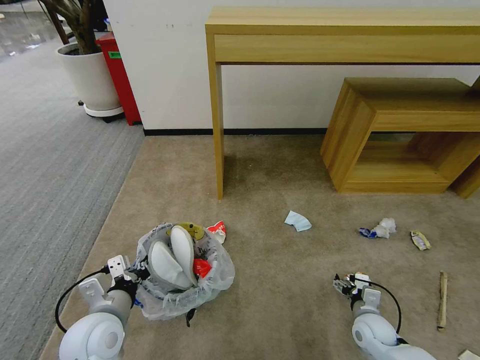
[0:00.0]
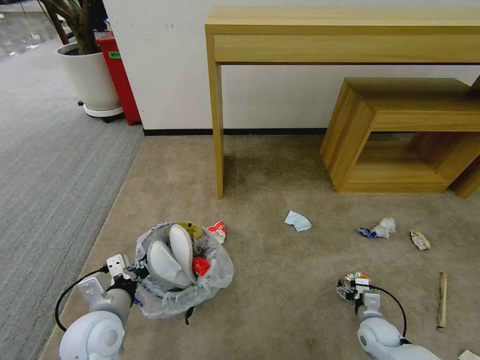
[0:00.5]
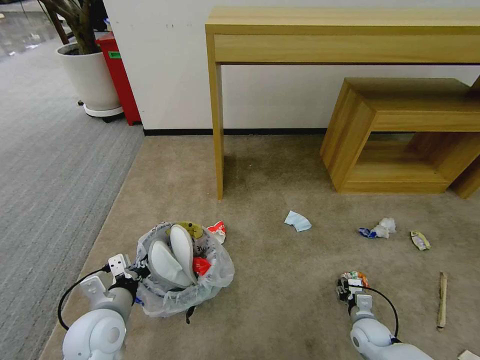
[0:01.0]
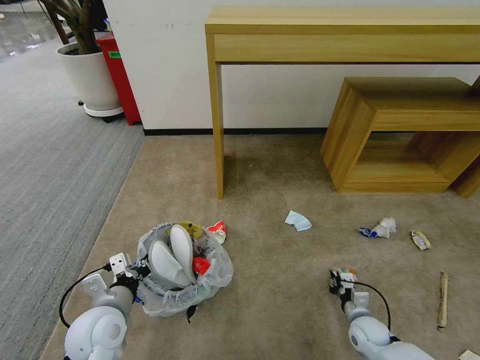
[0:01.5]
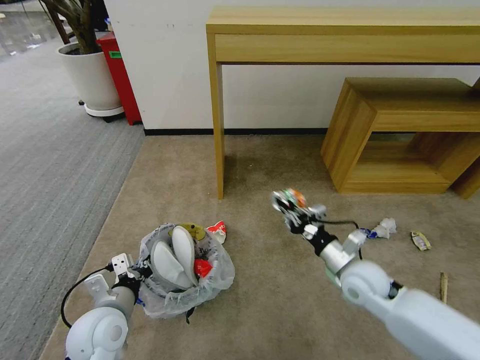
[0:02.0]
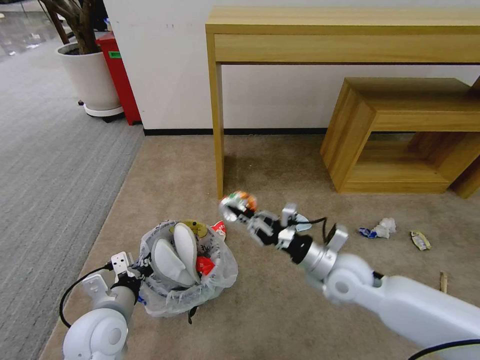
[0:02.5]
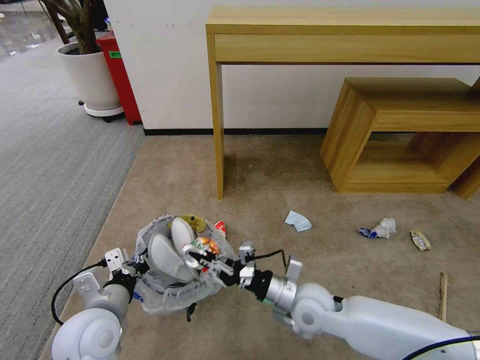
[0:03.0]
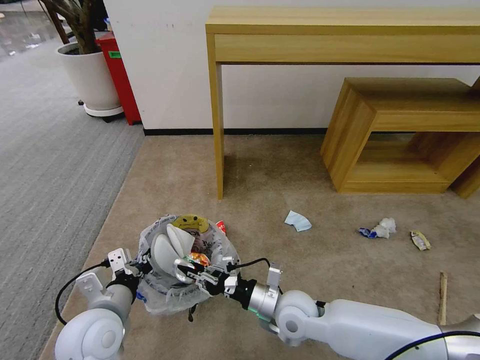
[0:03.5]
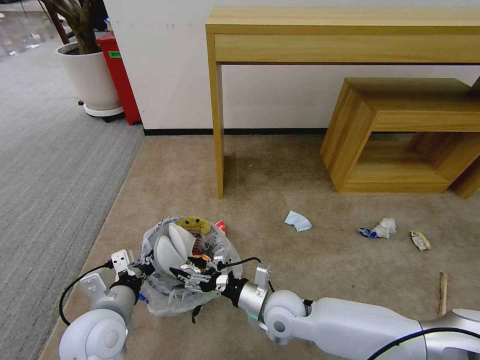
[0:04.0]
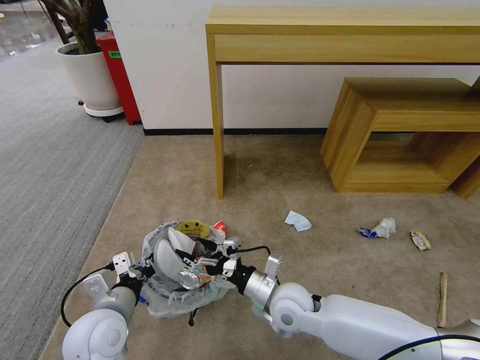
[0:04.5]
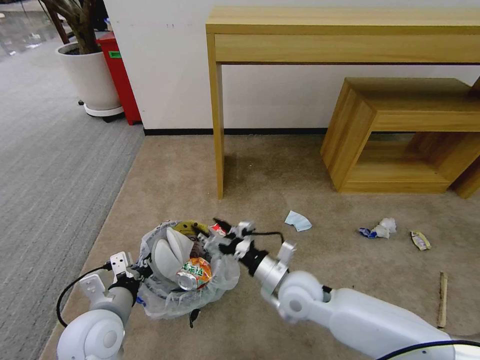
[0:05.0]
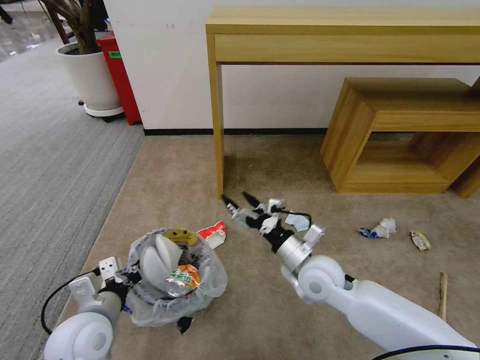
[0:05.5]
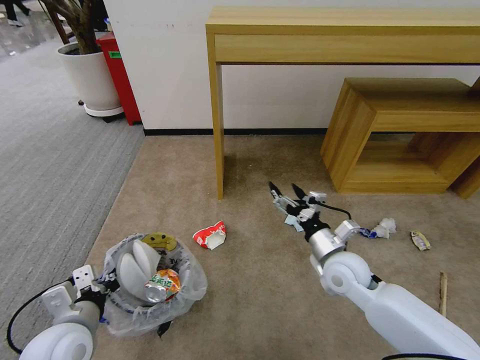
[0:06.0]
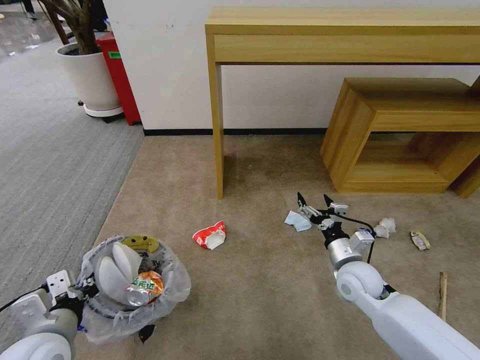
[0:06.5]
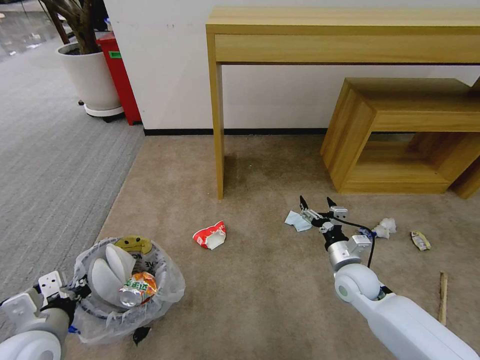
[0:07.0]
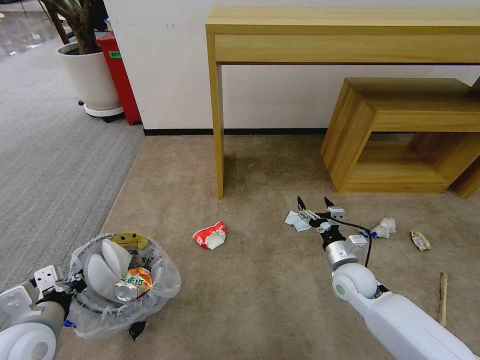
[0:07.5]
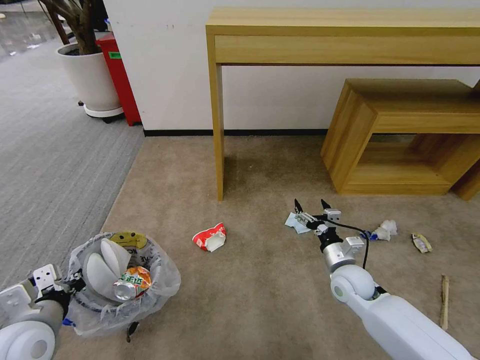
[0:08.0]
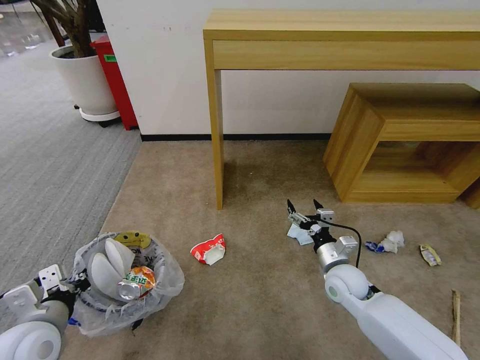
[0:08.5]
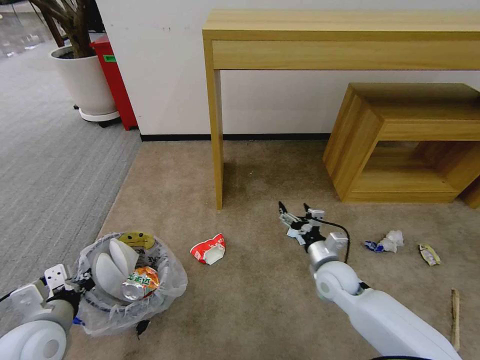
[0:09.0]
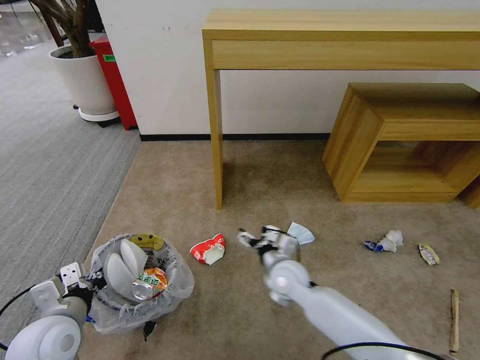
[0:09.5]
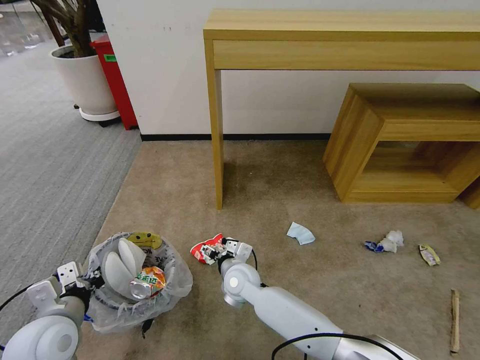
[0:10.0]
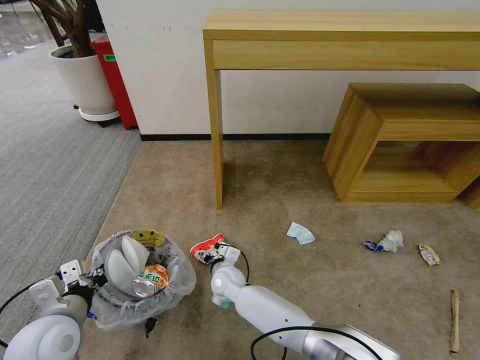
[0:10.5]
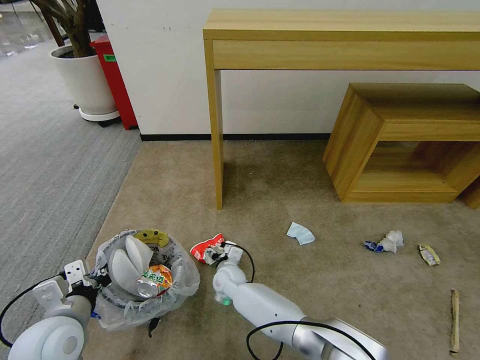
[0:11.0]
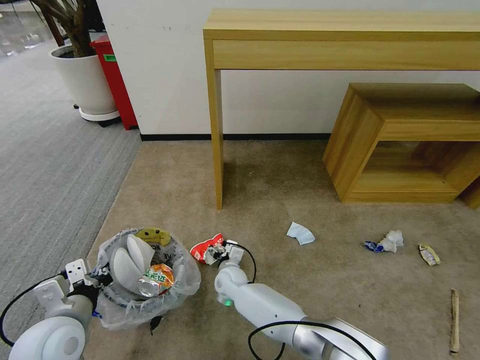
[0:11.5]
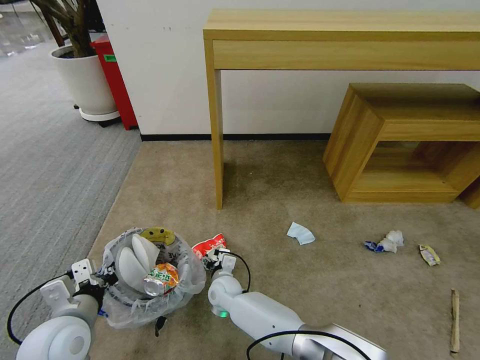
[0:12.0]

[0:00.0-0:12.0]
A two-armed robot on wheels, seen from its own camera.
Task of the whole recording: Pick up the trash bin and place the garbage on the floor into it.
0:00.0 to 0:02.0: The right gripper travels upward by about 20 cm, and closes.
0:02.0 to 0:04.0: The right gripper goes some 20 cm to the left and downward, and opens.
0:04.0 to 0:06.0: The left gripper ends up approximately 5 cm from where it was, while the right gripper goes about 15 cm to the right, upward and forward.
0:06.0 to 0:08.0: The right gripper travels downward by roughly 10 cm; the left gripper travels to the left by some 5 cm.
0:08.0 to 0:10.0: The right gripper moves to the left, roughly 30 cm.
0:10.0 to 0:12.0: The right gripper shifts approximately 10 cm downward.

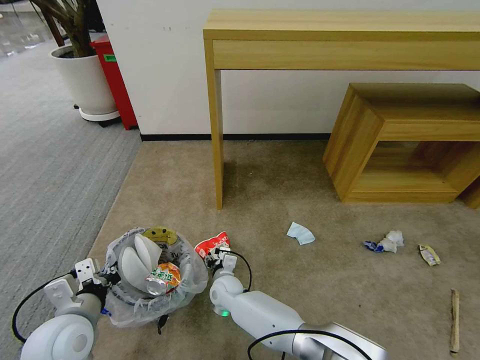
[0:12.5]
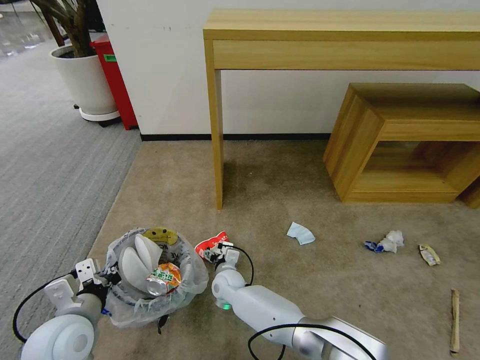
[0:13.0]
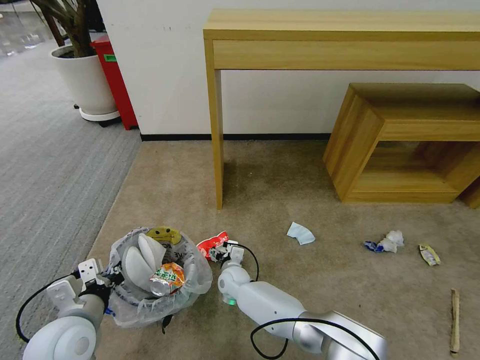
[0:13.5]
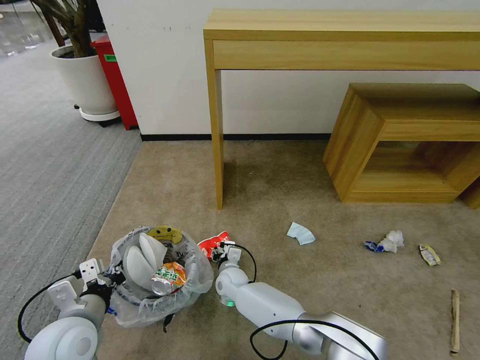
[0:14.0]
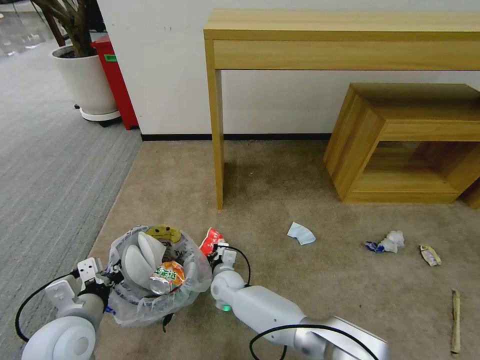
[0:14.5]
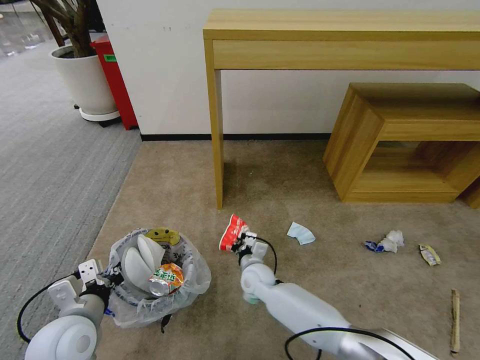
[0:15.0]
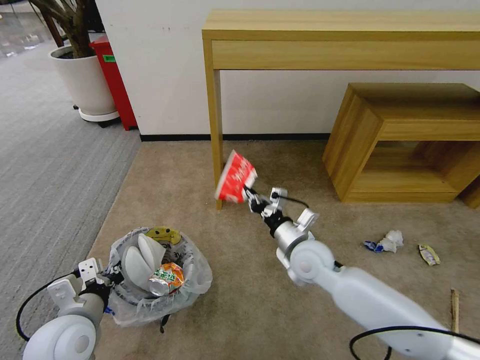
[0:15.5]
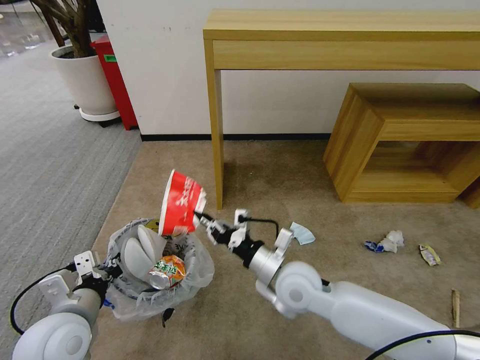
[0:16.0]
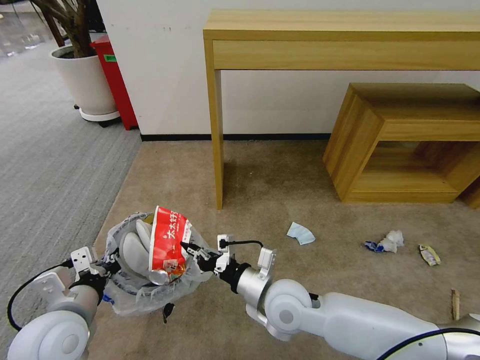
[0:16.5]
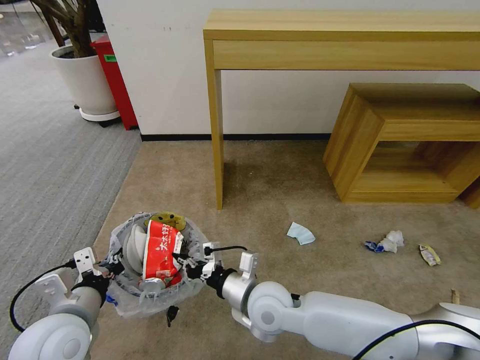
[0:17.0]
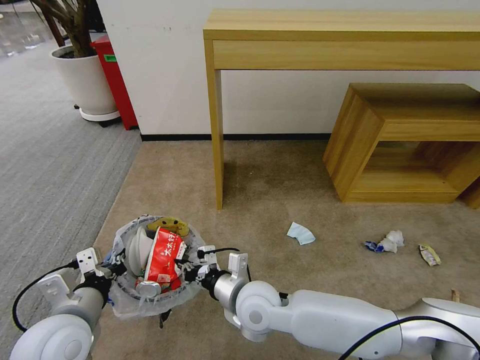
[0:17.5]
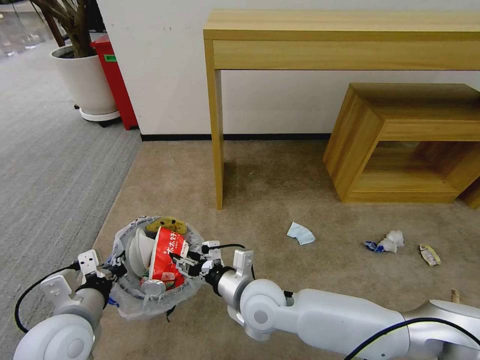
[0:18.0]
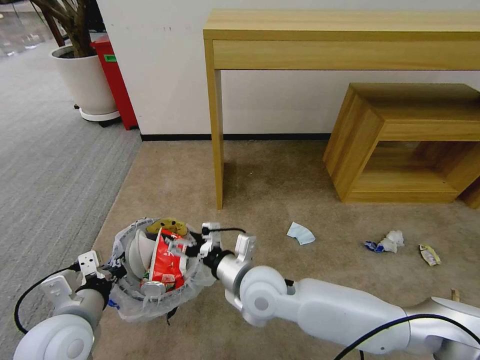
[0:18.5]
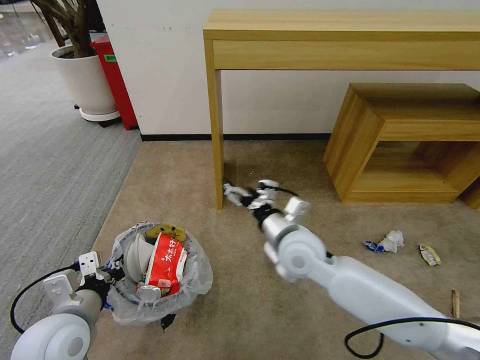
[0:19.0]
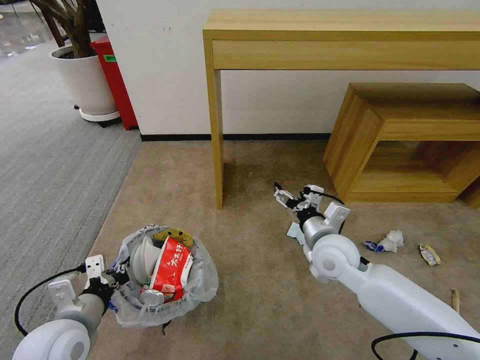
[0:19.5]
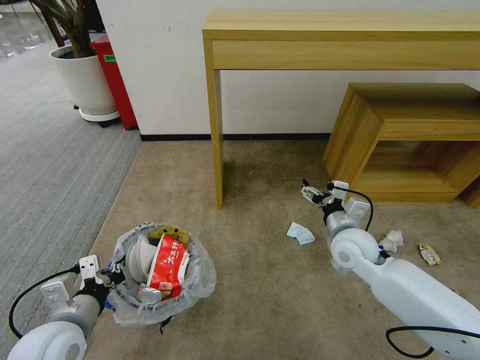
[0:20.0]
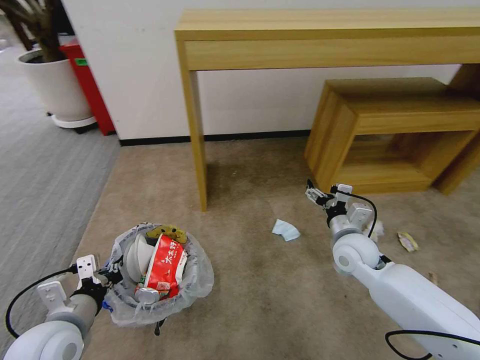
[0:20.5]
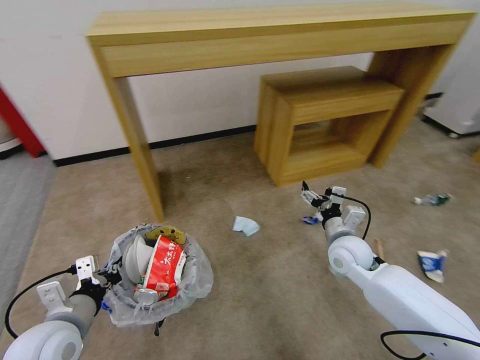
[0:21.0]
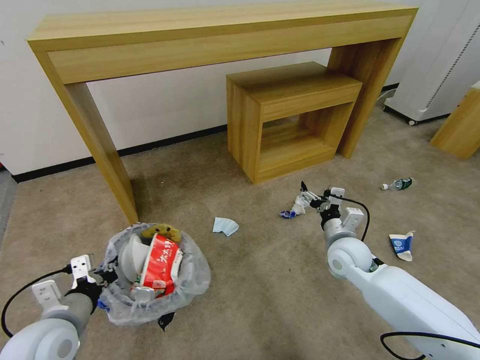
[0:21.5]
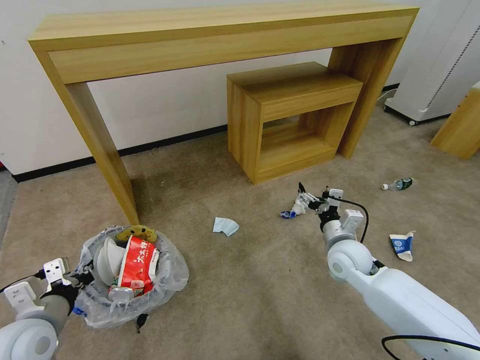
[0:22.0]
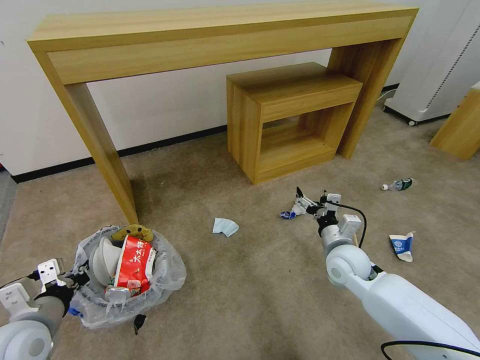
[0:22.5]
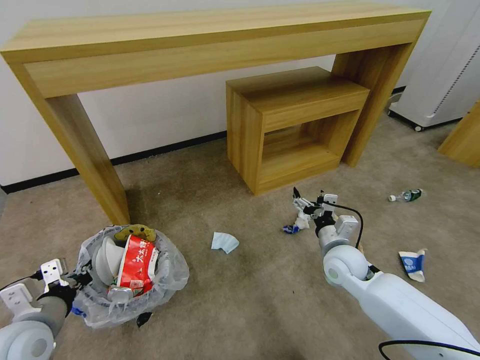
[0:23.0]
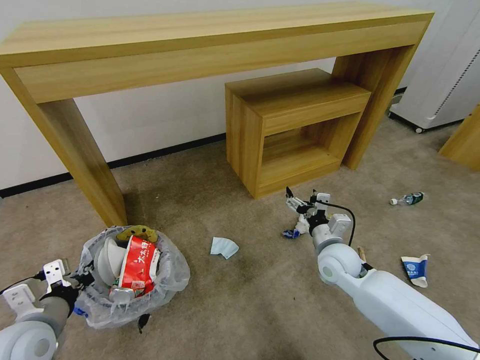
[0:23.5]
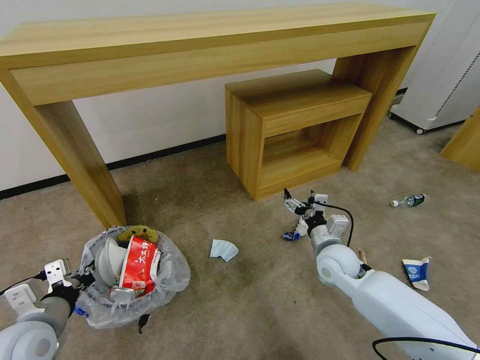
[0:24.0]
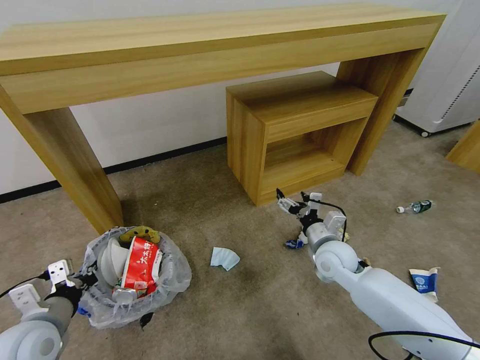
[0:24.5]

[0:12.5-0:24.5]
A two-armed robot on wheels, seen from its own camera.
Task of the whole recording: Pick up the trash bin and place the garbage on the floor into it.
0:12.5 to 0:14.5: The right gripper closes.
0:14.5 to 0:16.5: The right gripper moves upward, to the right and backward, some 25 cm.
0:16.5 to 0:18.5: The right gripper moves approximately 5 cm, and opens its fingers.
0:18.5 to 0:20.5: The right gripper shifts roughly 25 cm to the right and forward.
0:20.5 to 0:22.5: The left gripper heads to the left, covering roughly 5 cm.

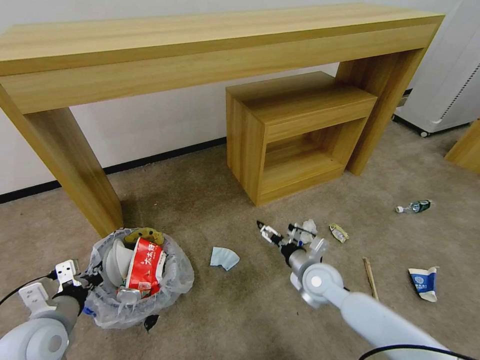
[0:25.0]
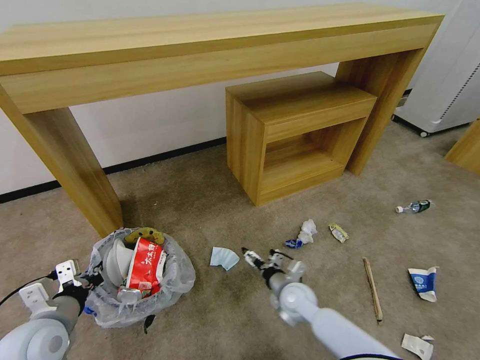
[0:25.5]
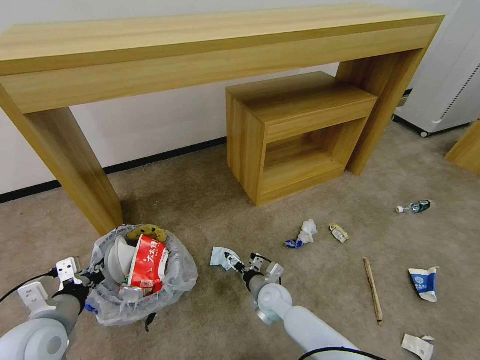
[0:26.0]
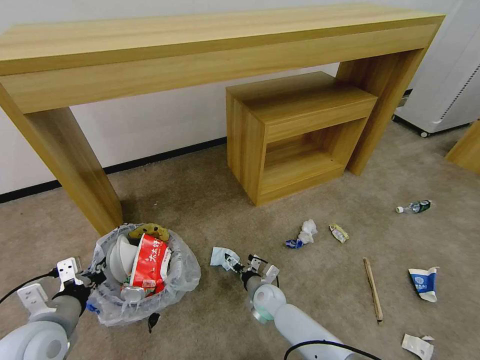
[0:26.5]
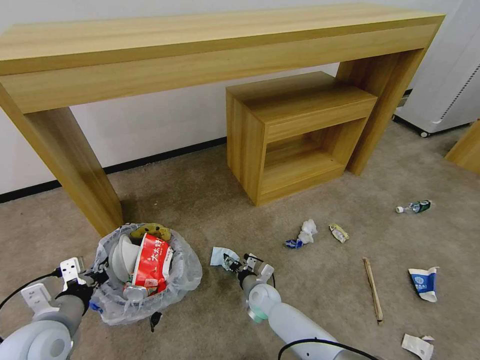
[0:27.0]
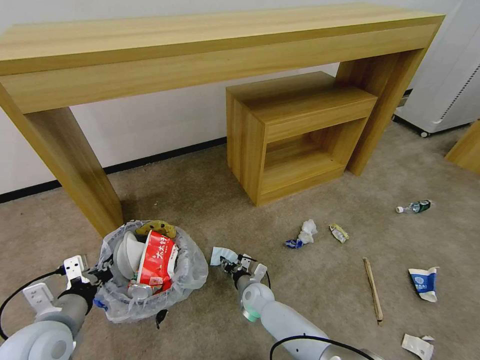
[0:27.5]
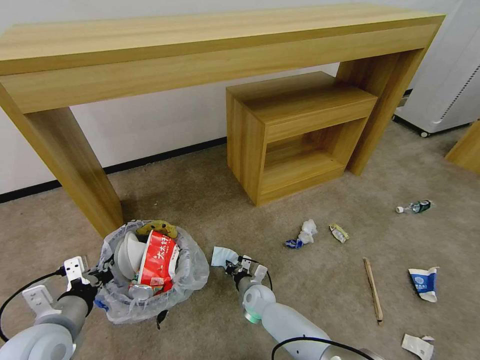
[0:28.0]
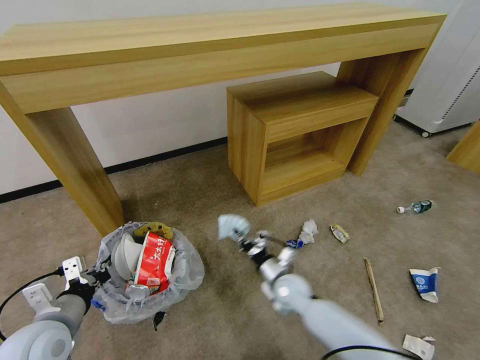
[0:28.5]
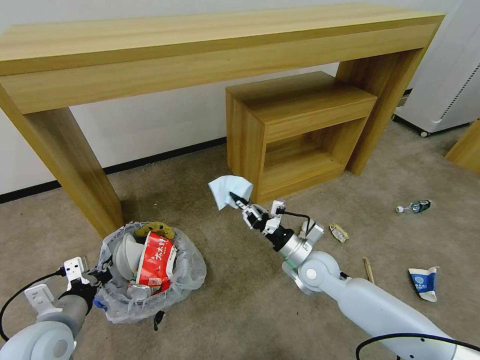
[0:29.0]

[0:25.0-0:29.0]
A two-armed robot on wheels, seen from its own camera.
Task of the whole recording: Pick up the trash bin and place the garbage on the floor into it.
0:25.0 to 0:27.0: The right gripper travels downward and to the left by about 20 cm, and closes up.
0:27.0 to 0:29.0: The right gripper travels upward and to the right by roughly 20 cm, and closes.
